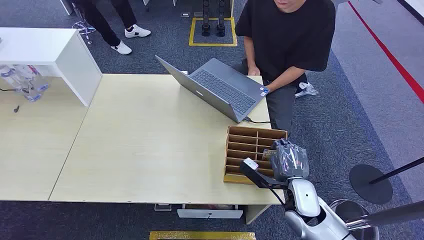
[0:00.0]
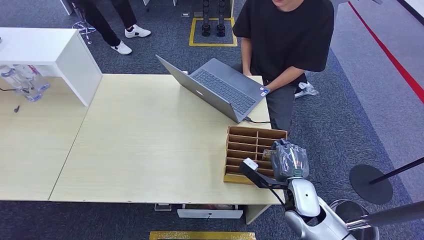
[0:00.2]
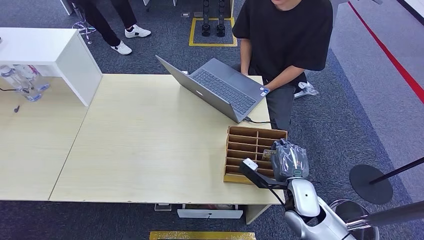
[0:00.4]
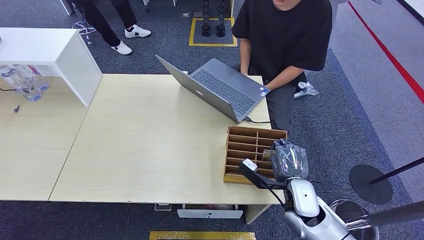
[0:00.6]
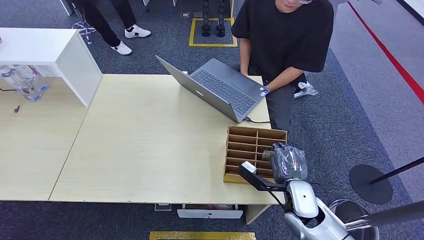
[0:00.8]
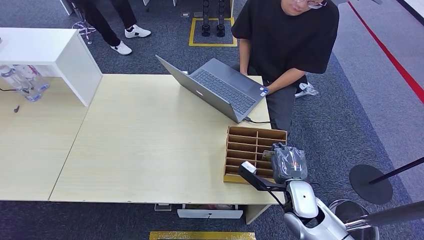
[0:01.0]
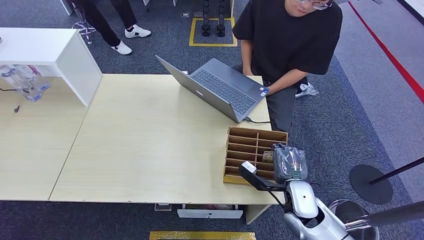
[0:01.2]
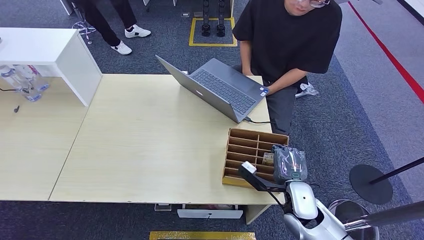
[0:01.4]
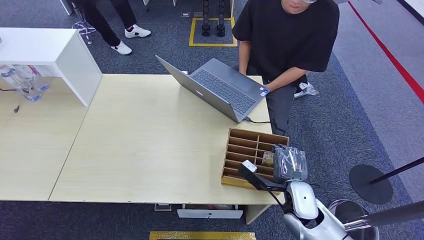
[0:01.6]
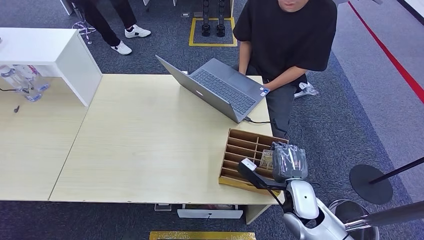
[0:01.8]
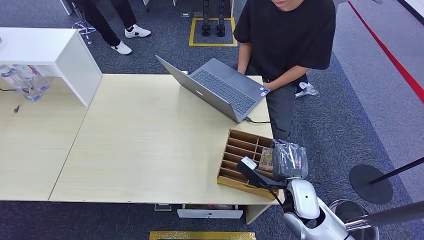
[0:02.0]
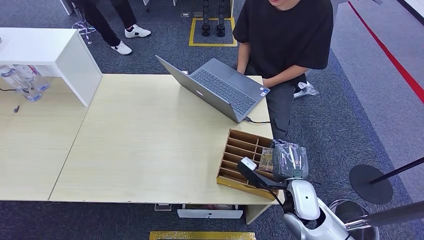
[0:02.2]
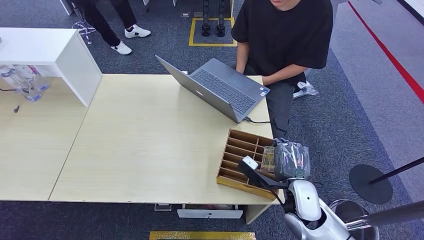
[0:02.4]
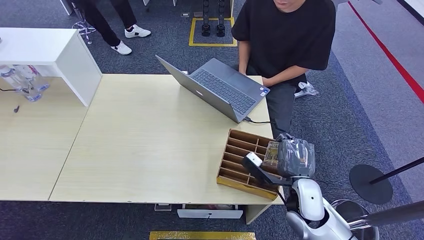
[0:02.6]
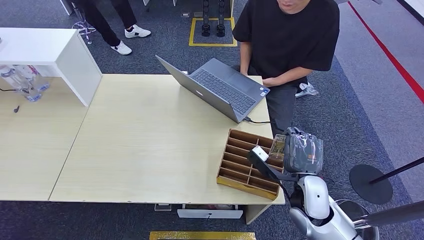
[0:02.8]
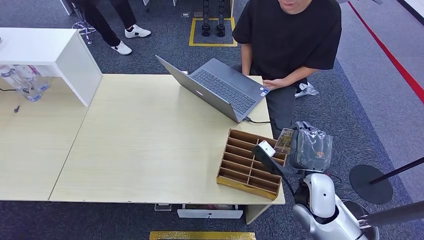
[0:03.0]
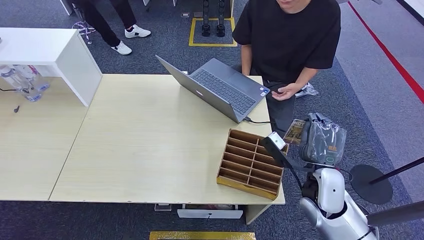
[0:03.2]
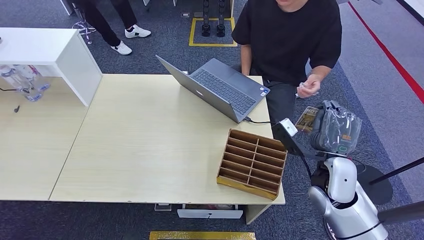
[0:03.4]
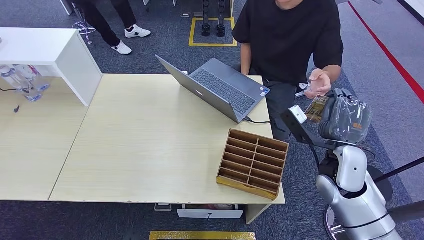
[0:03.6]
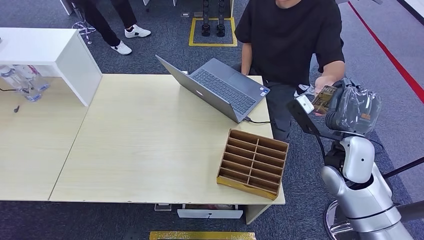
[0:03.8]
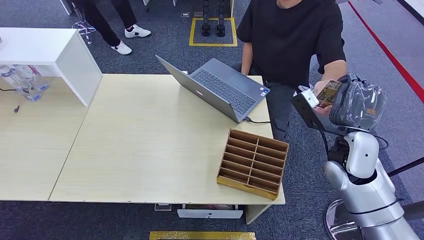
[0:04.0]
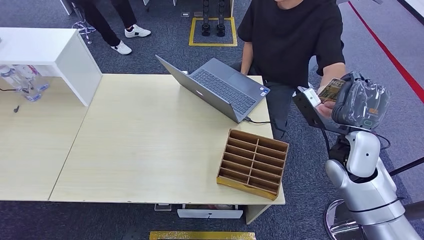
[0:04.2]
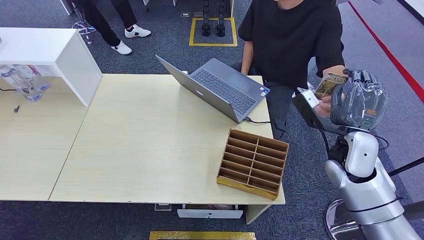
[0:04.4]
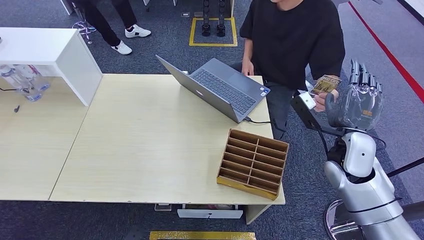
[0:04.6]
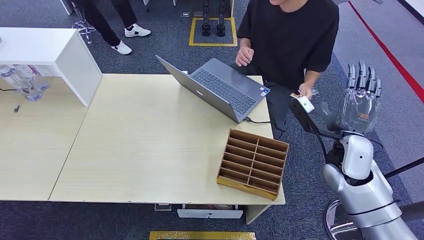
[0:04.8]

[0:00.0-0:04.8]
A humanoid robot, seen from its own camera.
Step, 0:00.0 to 0:03.4: Pick up the key card from the card box.
Step, 0:03.8 to 0:04.8: Hand the key card to the target.
0:01.6 to 0:03.2: The right hand shifts some 5 cm upward.
0:03.2 to 0:04.8: The right hand shifts roughly 10 cm to the right, forward and upward.
